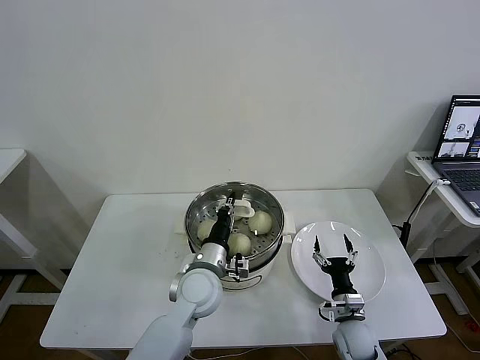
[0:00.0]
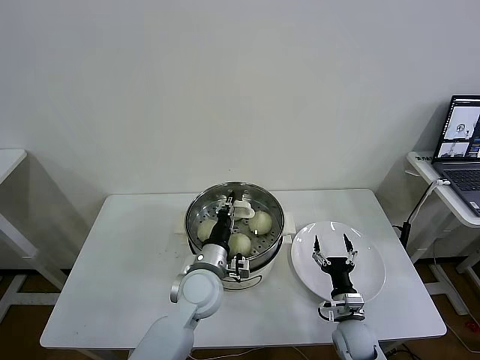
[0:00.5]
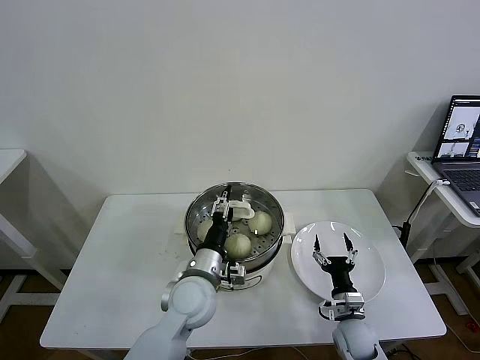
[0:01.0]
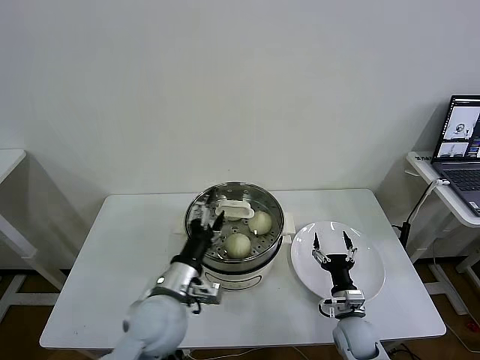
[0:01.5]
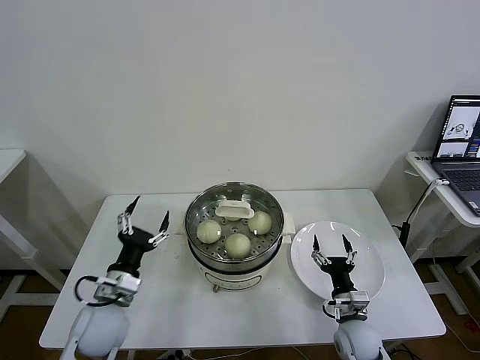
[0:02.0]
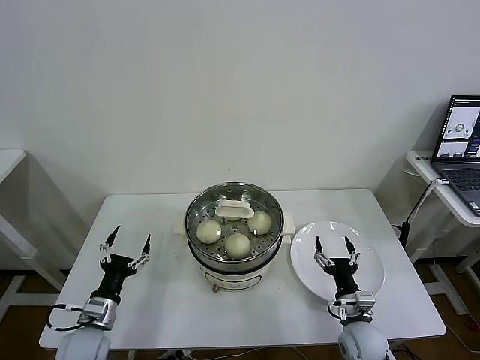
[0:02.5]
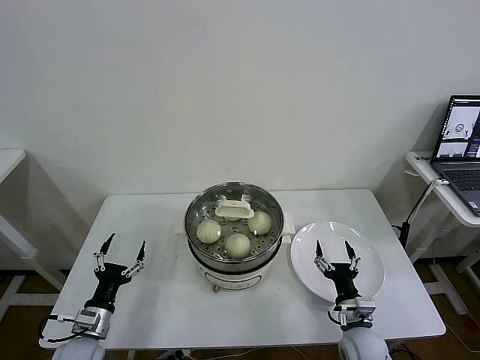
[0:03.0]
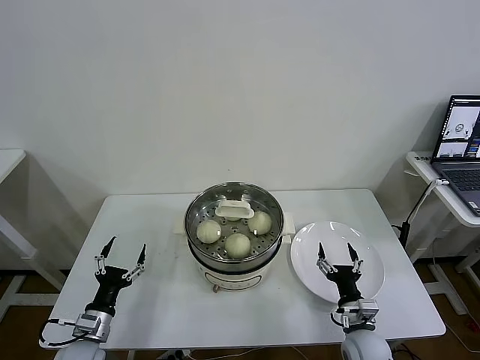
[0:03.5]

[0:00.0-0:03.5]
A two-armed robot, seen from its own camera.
Task of the whole recording: take steamed baozi put them in steamer then cover it.
0:00.0 to 0:02.0: The left gripper heads to the left, covering some 15 cm, and opens.
0:02.0 to 0:03.5: The left gripper goes about 15 cm downward and to the left.
